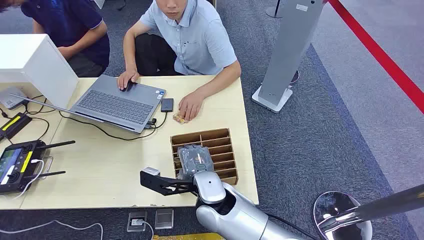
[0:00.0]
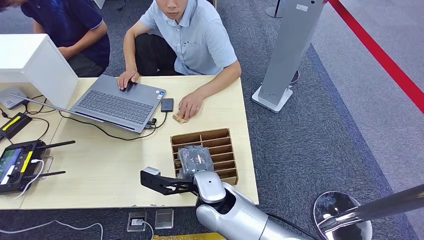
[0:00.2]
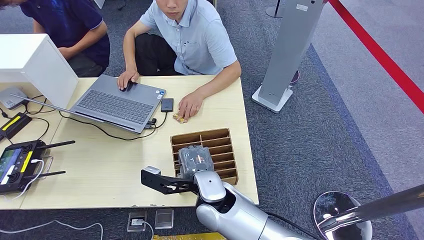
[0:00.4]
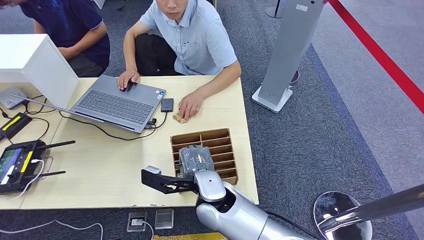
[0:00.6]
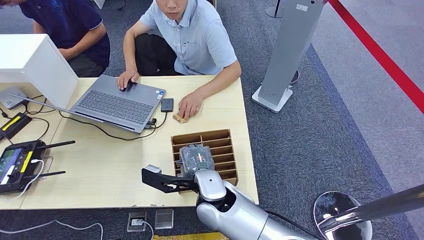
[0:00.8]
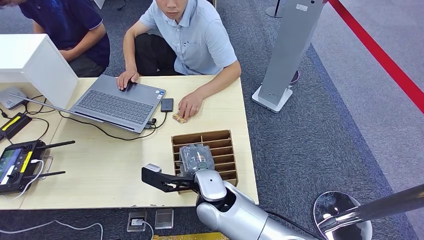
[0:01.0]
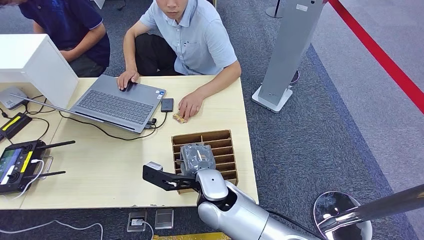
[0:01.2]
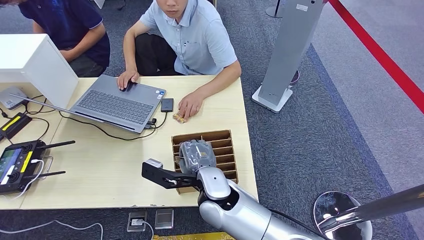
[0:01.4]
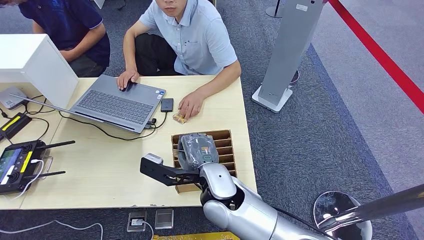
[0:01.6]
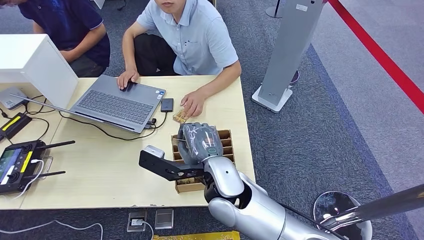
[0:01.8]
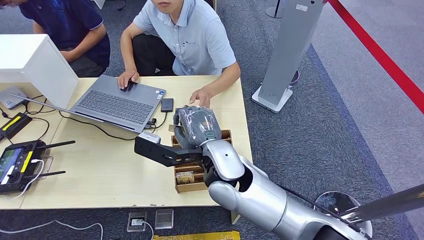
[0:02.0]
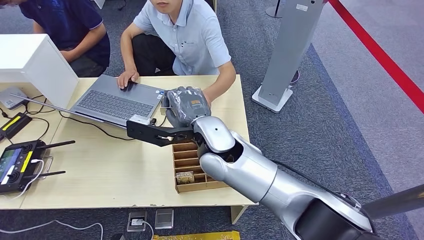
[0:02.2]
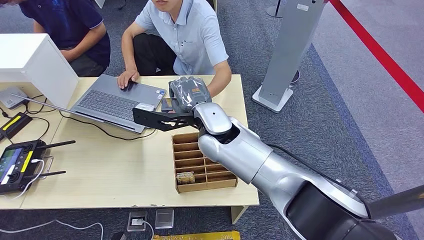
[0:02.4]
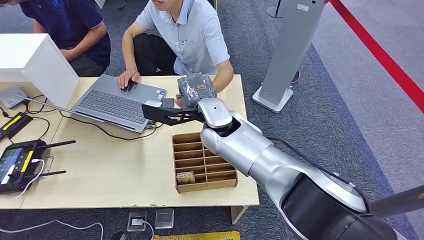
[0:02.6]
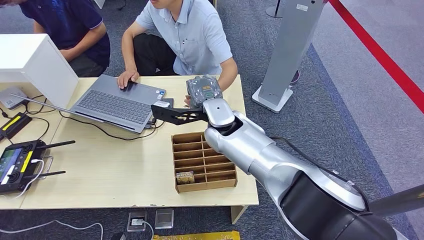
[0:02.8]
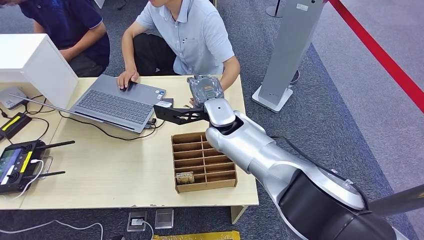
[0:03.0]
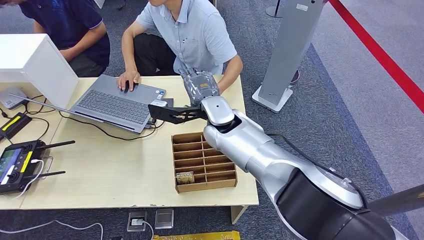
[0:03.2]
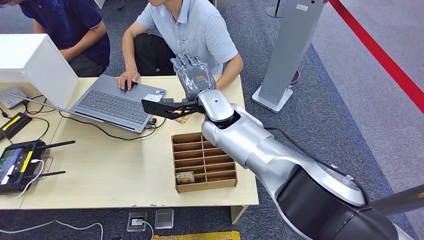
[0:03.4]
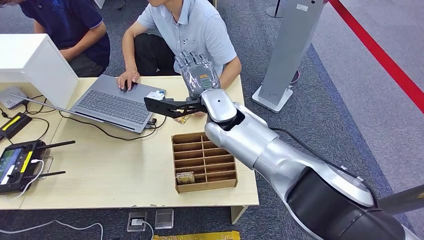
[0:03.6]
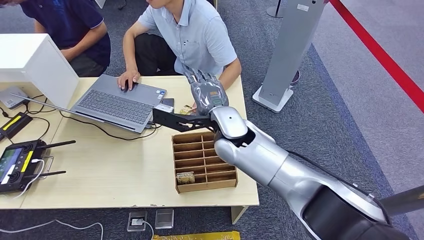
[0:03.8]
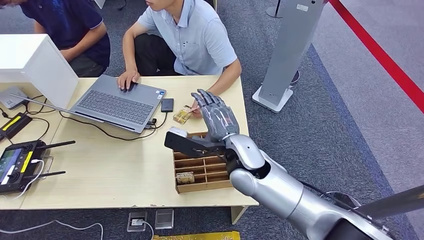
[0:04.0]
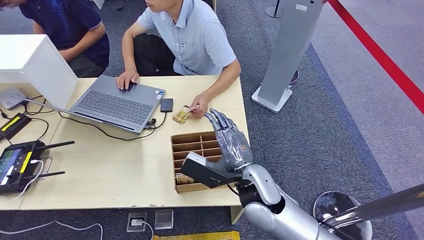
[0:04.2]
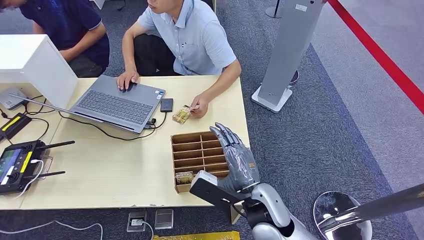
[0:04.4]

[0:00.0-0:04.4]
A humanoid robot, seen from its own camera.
Step, 0:00.0 to 0:01.6: Pick up the room card from the card holder.
Step, 0:02.2 to 0:04.2: Hand the room card to the target.
0:01.4 to 0:03.0: The right hand travels forward and upward by approximately 15 cm.
0:03.0 to 0:04.4: The right hand moves backward, to the right and downward, some 20 cm.
